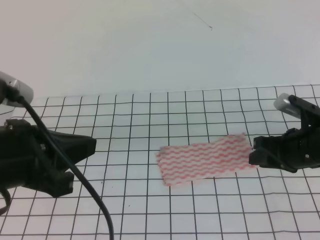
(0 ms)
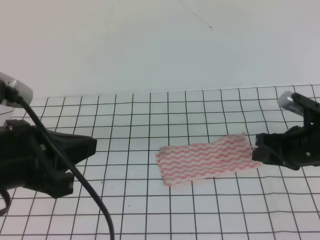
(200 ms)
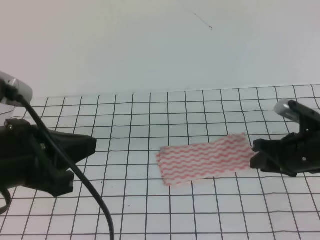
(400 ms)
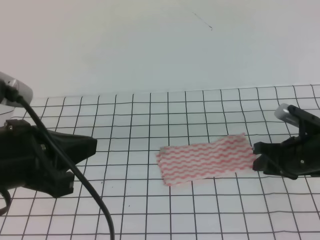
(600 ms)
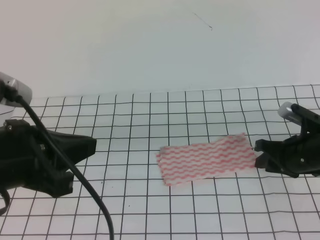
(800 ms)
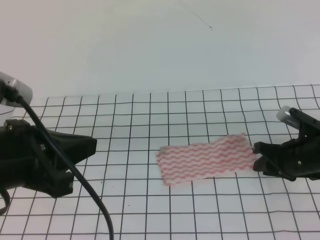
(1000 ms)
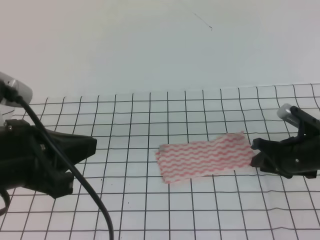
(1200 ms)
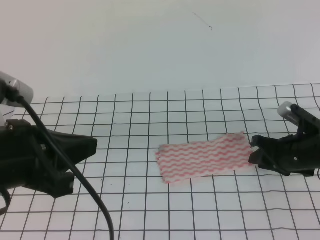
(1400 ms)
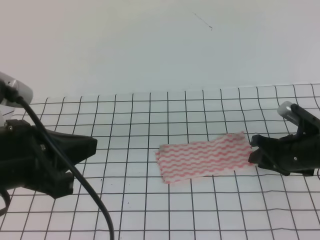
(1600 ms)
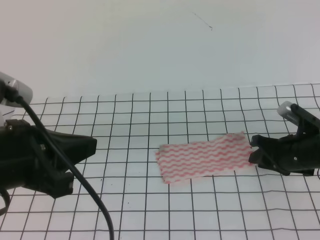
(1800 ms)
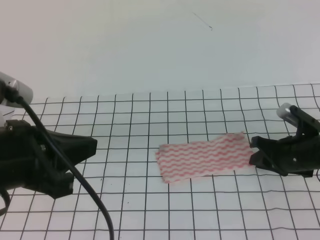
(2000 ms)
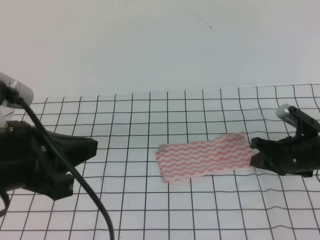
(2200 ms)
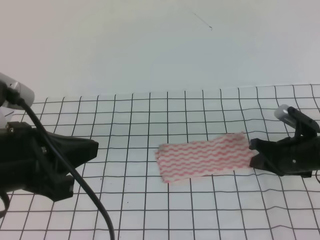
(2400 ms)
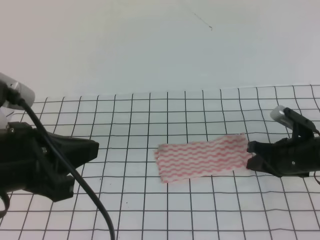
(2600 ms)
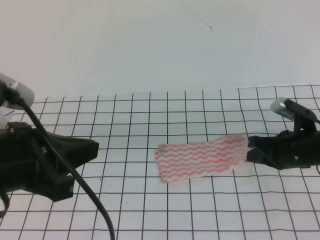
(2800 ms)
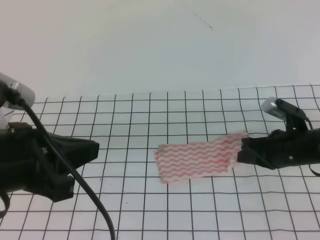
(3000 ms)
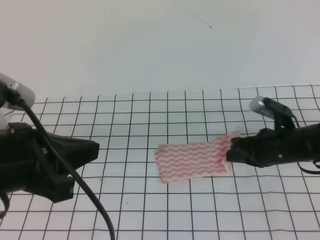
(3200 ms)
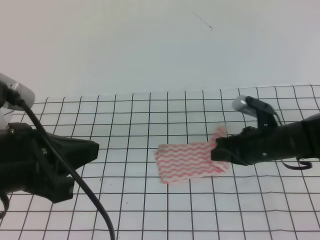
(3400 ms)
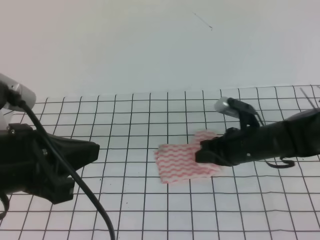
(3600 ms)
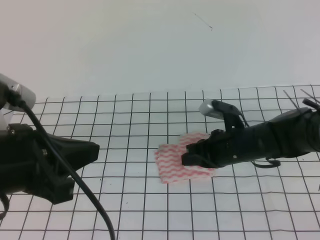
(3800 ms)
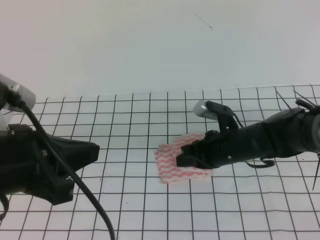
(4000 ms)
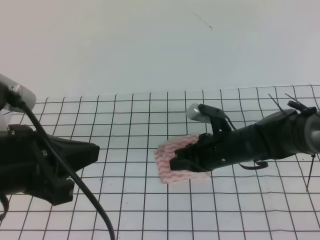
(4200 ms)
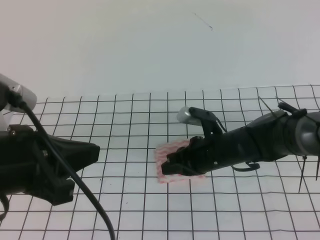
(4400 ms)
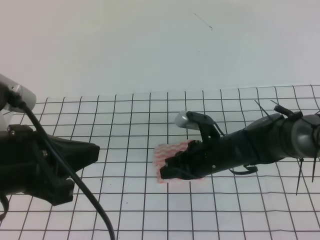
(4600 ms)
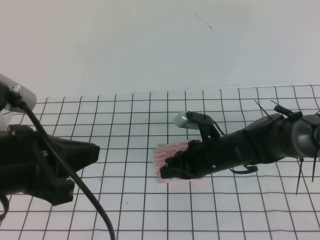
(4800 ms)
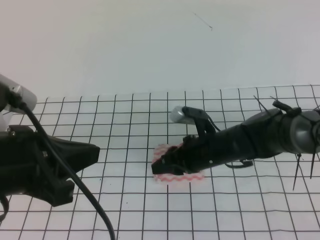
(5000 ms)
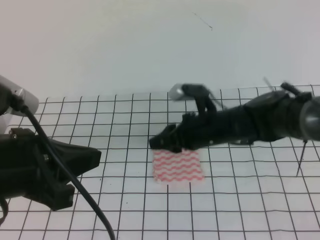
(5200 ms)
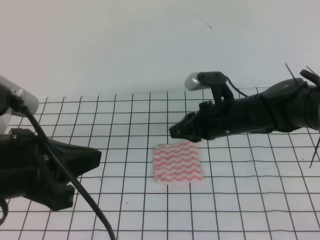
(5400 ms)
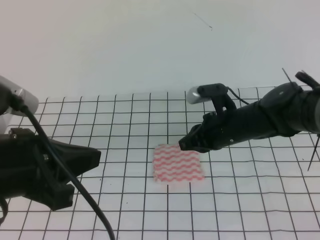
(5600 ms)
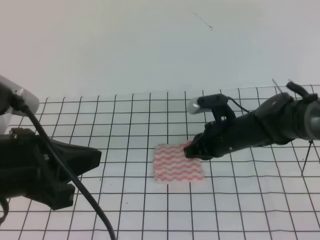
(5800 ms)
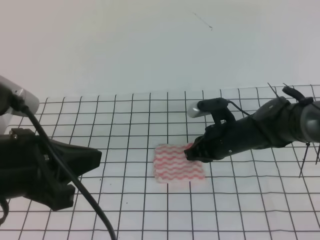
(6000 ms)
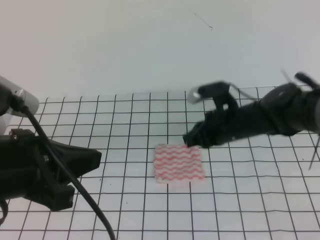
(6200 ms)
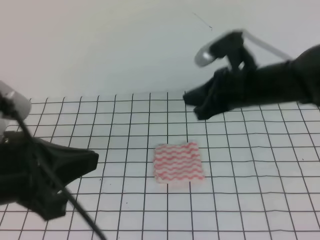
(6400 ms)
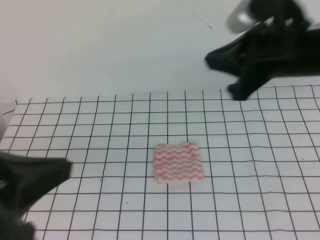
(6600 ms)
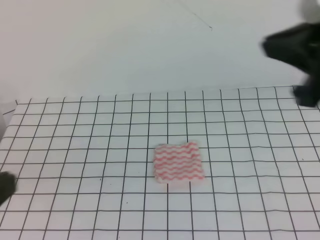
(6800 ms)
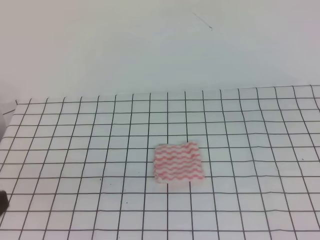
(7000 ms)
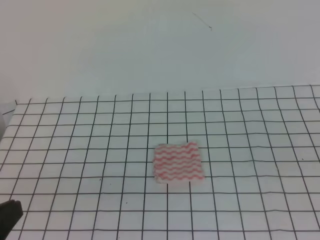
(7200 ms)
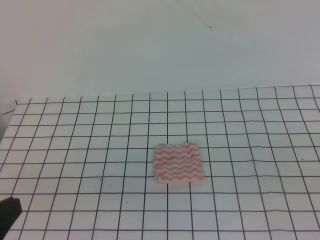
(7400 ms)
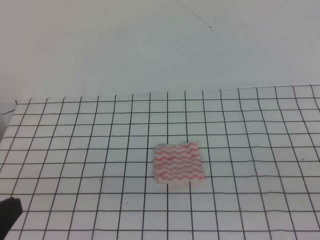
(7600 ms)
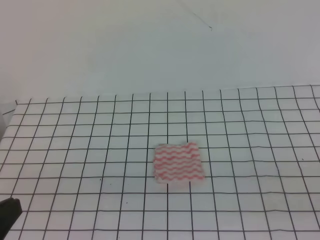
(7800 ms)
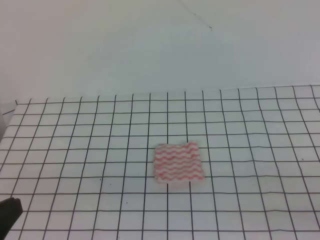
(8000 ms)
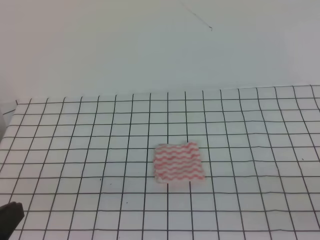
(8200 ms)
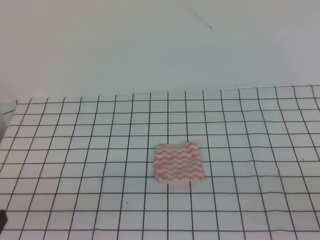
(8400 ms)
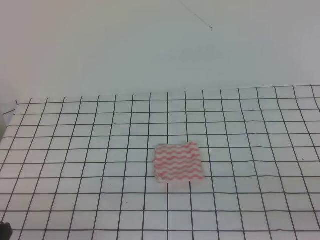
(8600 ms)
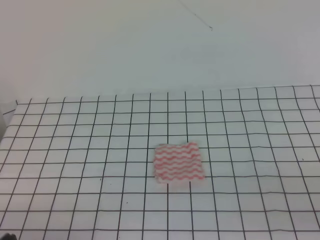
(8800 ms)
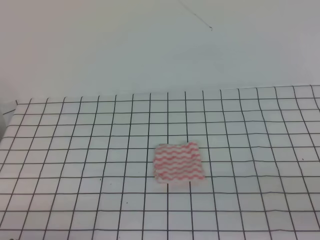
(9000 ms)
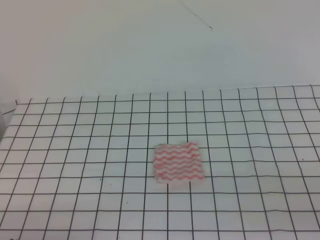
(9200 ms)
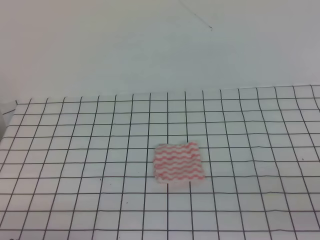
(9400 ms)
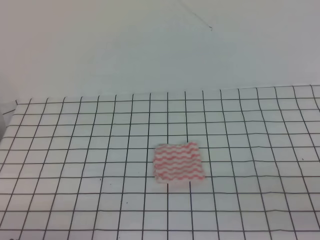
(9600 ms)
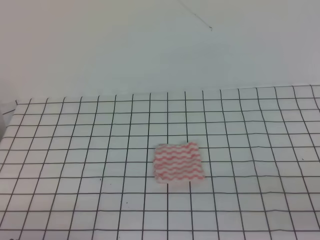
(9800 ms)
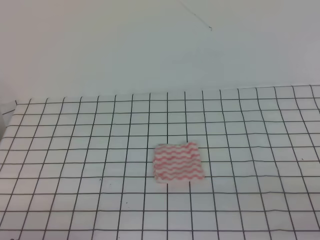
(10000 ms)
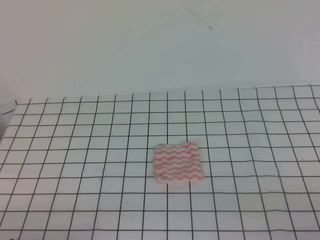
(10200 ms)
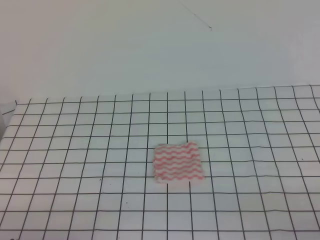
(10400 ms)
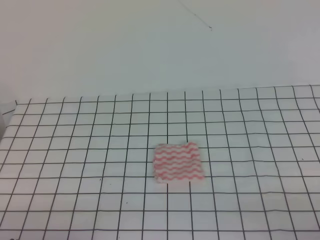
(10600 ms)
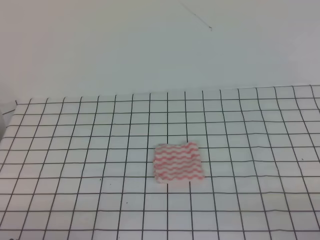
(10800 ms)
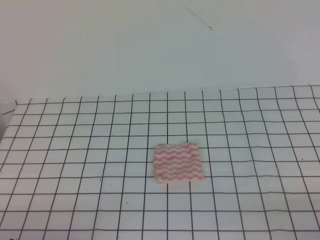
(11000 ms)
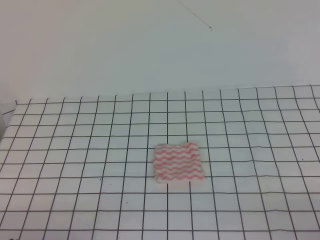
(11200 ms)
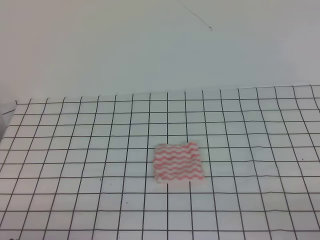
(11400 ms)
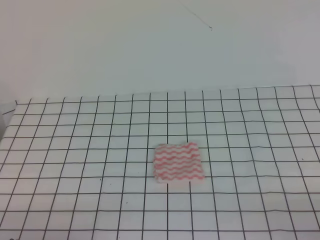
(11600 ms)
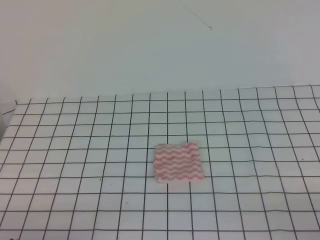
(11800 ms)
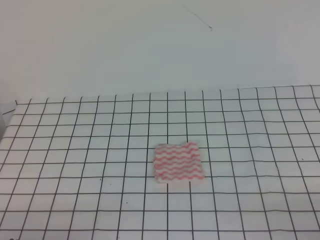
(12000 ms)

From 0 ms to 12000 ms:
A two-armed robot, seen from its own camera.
Step, from 0 ms to 12000 ms: Fold the towel.
From 0 ms to 1600 ms: The right gripper heads downward, covering about 5 cm.
From 1600 ms to 3000 ms: The right gripper closes up.
From 3000 ms to 4400 ms: The right gripper shifts roughly 15 cm to the left.
From 4400 ms to 6000 ms: The right gripper opens, then closes once more.
From 6000 ms to 7600 ms: The right gripper heads backward, to the right and upward, covering approximately 35 cm, while the left gripper travels backward and to the left by about 10 cm.
From 7600 ms to 9000 ms: The left gripper moves downward, about 10 cm.
